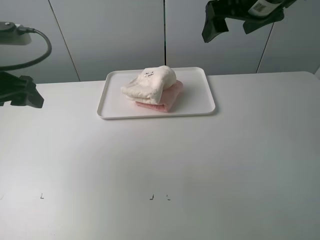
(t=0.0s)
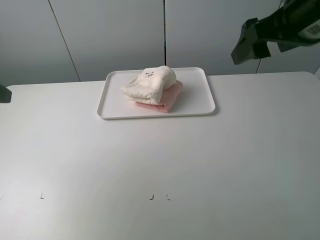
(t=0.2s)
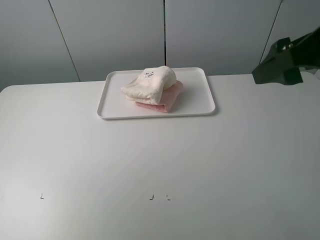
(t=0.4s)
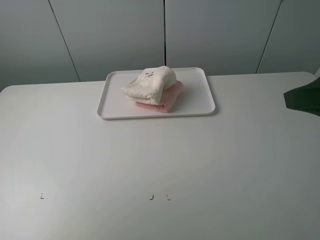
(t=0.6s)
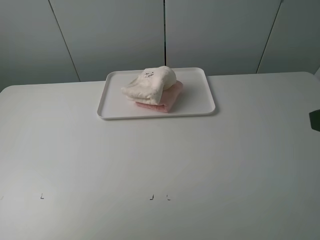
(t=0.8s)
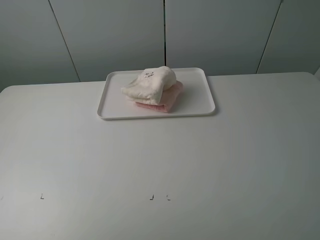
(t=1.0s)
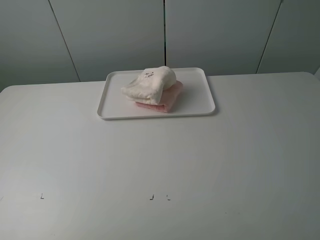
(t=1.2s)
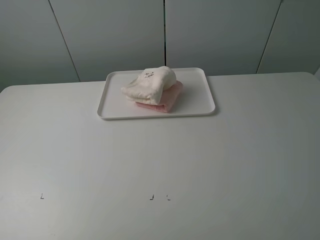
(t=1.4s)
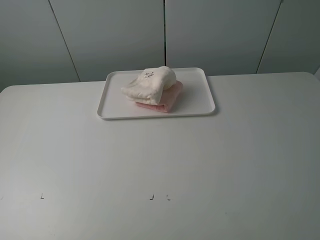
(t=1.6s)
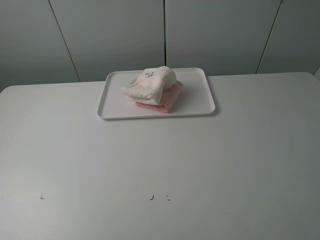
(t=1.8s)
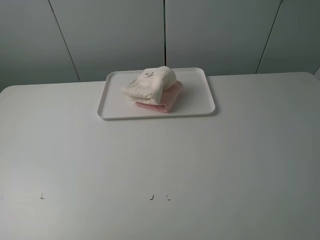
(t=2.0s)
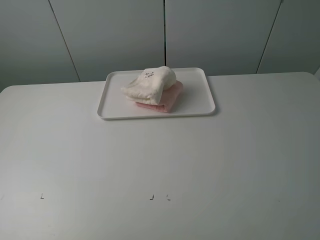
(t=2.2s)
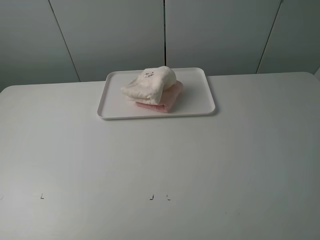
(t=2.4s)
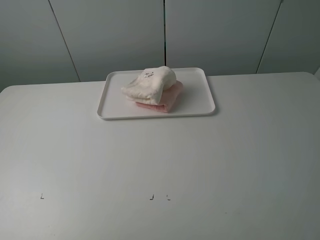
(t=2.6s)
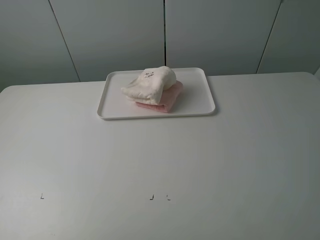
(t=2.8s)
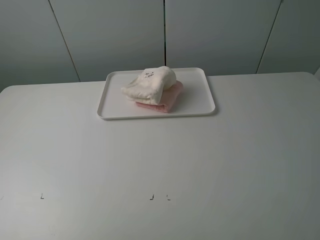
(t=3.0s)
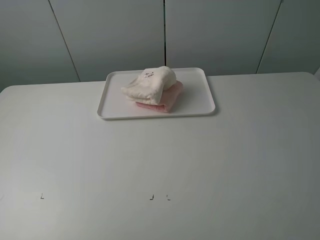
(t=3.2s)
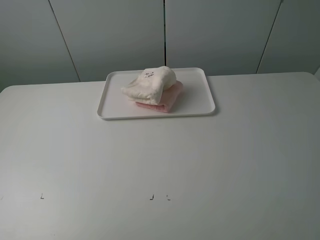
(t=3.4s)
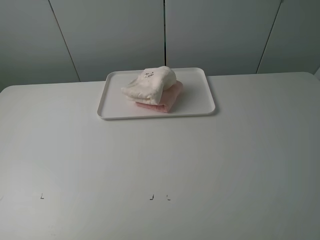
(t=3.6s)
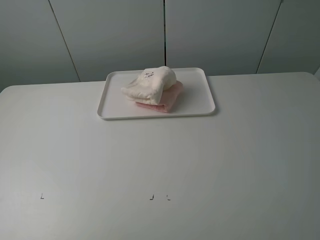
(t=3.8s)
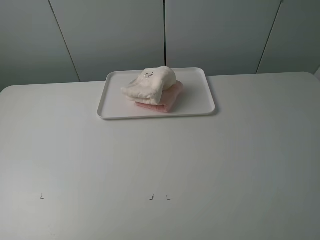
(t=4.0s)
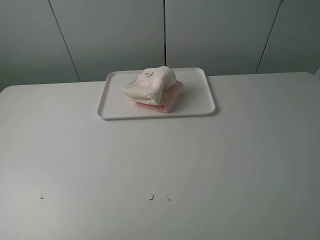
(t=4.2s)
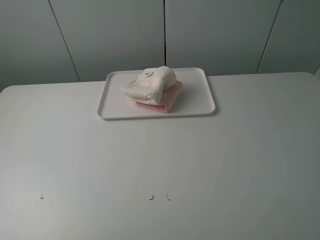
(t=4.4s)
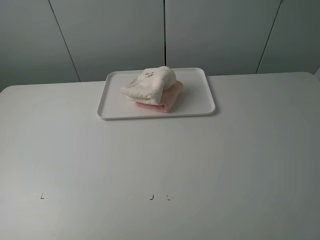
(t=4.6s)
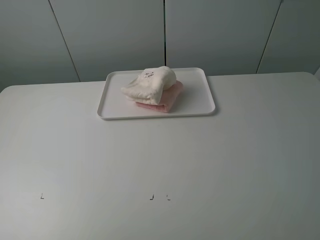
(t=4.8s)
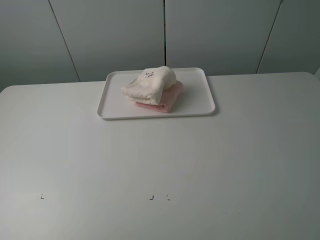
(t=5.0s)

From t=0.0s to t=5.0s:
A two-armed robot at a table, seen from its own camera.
Task of the whole recording: fold one of the towels by two grippers and place it on the tray,then fold another towel by two grippers and place it on the folded towel.
From t=0.0s to t=1.6s: The right gripper travels backward and to the right by roughly 35 cm. The left gripper shifts about 25 cm backward.
From t=3.4s to t=5.0s: Both grippers stay about where they are.
